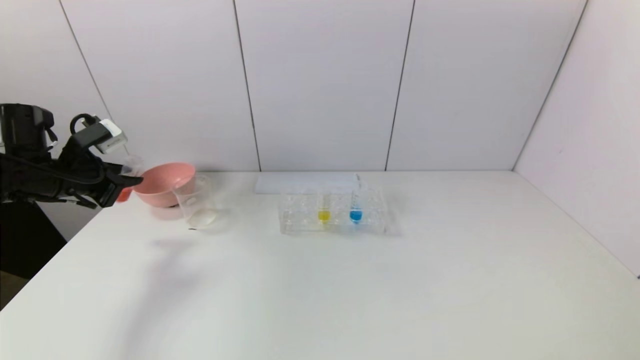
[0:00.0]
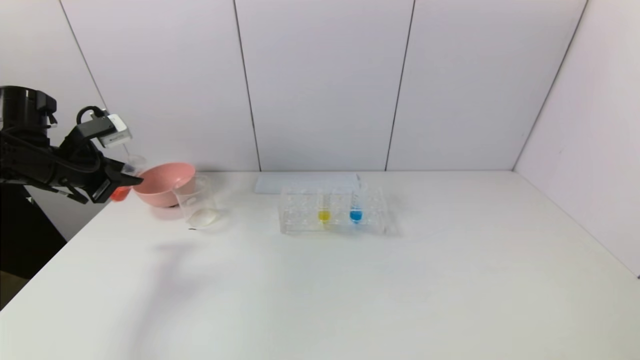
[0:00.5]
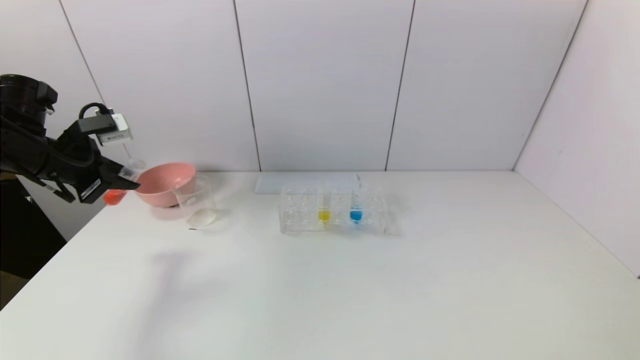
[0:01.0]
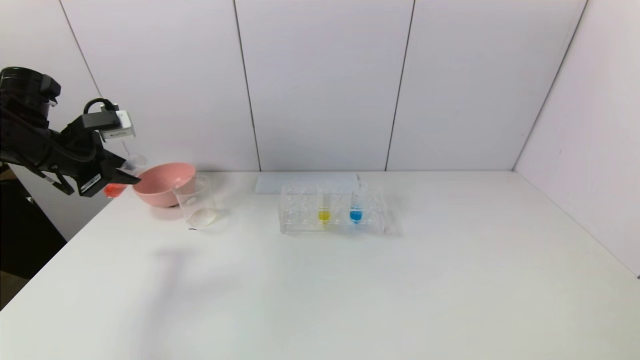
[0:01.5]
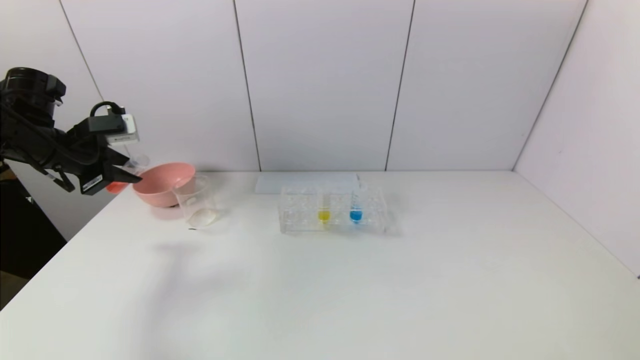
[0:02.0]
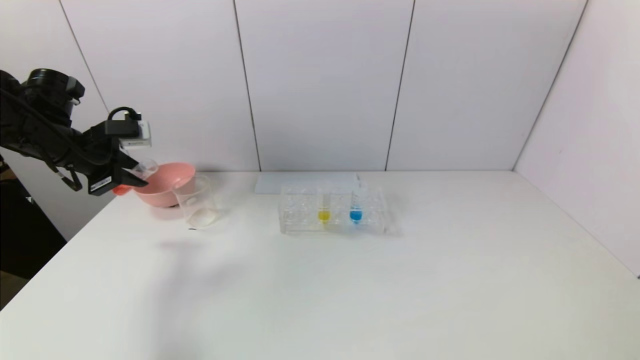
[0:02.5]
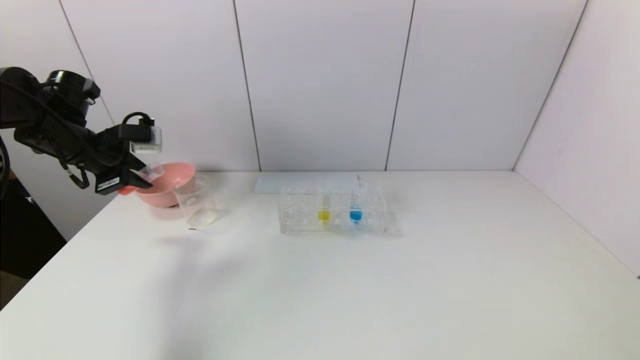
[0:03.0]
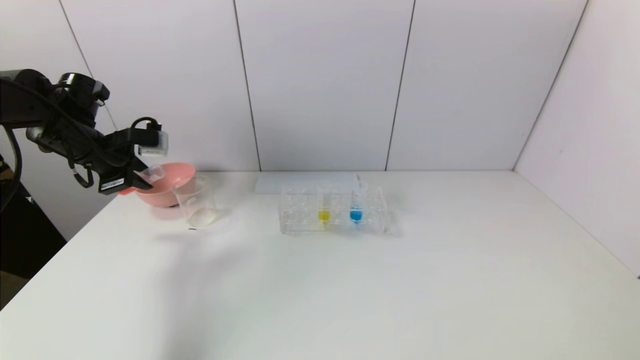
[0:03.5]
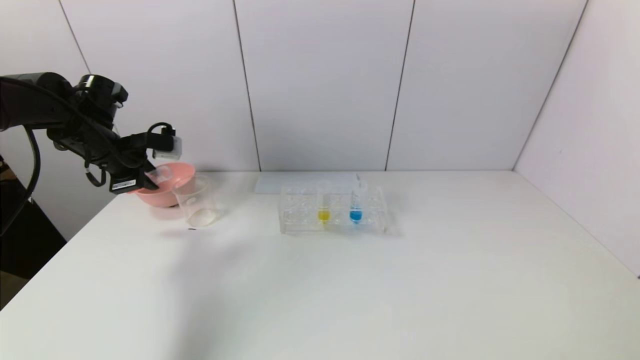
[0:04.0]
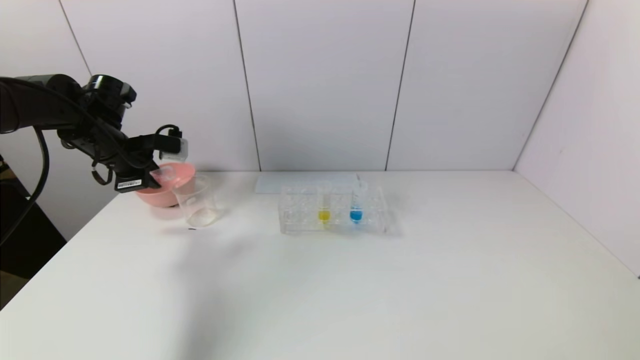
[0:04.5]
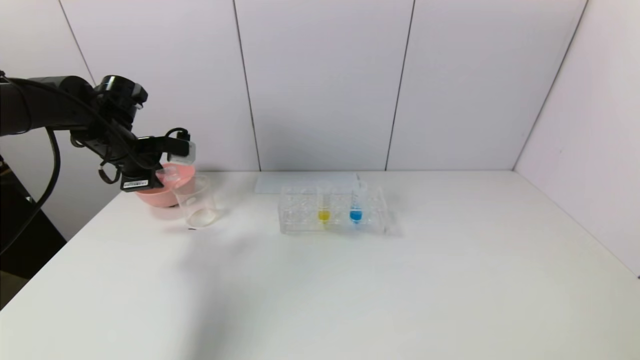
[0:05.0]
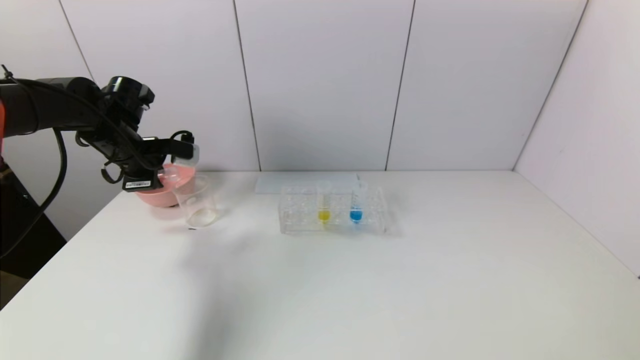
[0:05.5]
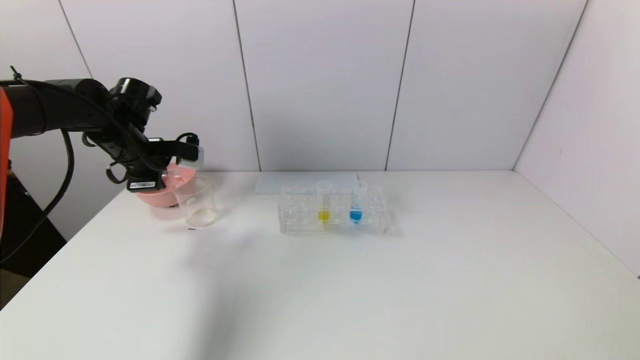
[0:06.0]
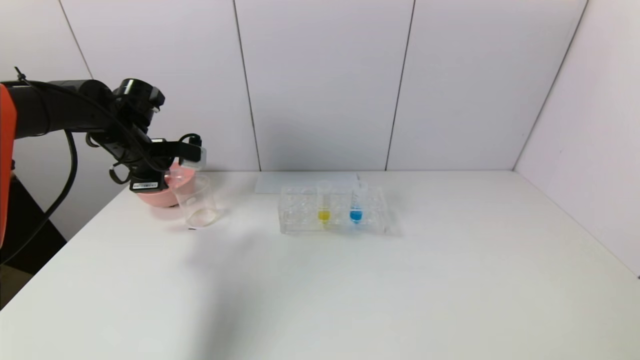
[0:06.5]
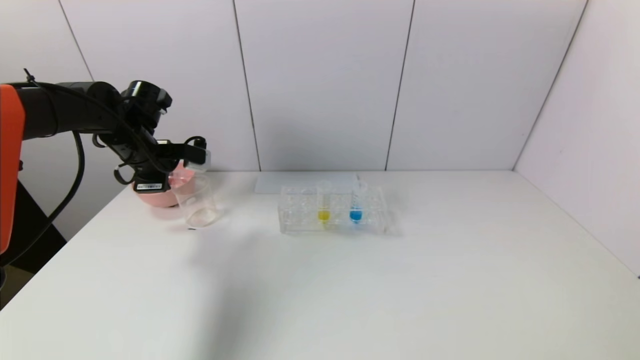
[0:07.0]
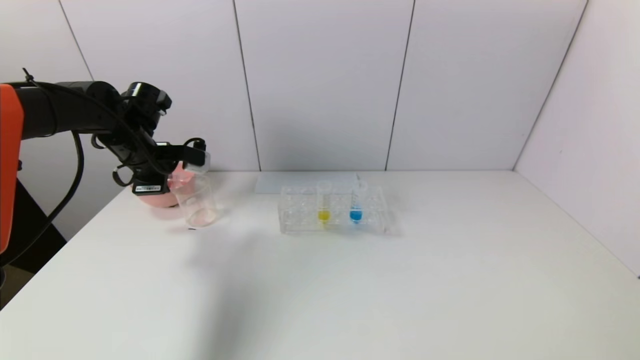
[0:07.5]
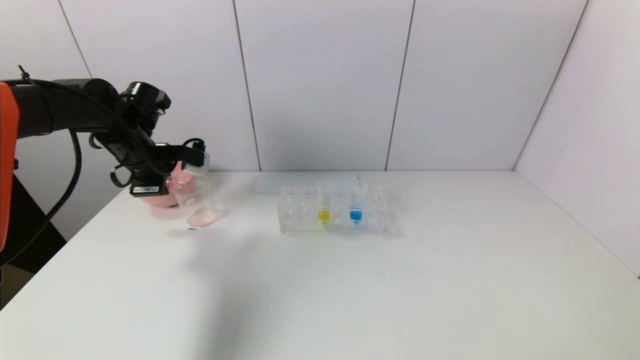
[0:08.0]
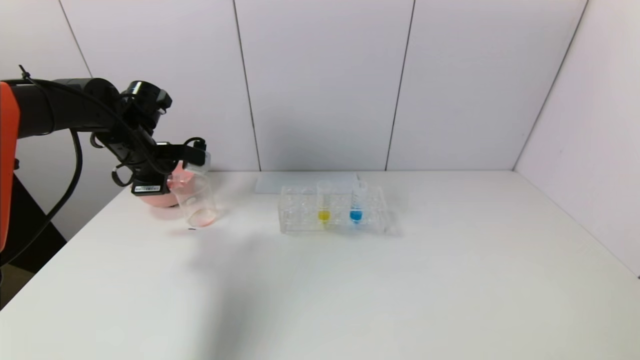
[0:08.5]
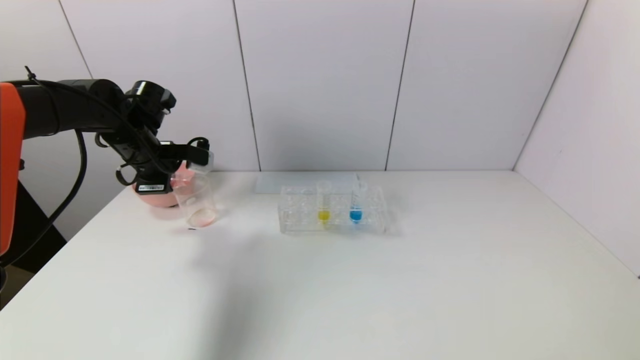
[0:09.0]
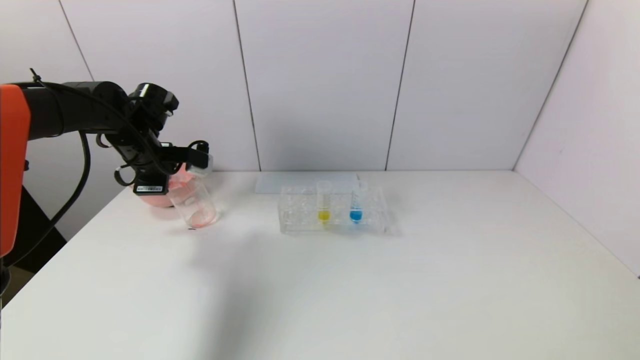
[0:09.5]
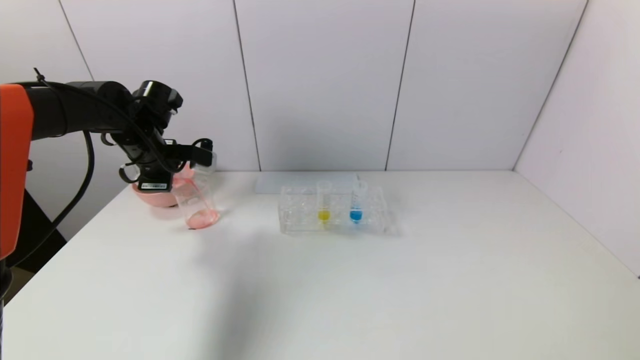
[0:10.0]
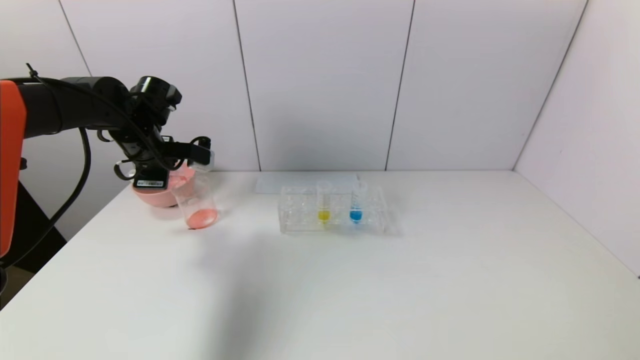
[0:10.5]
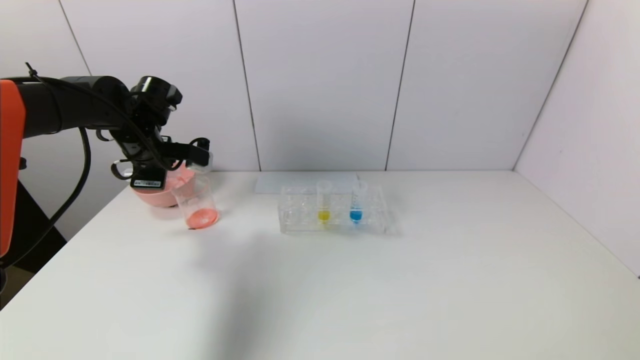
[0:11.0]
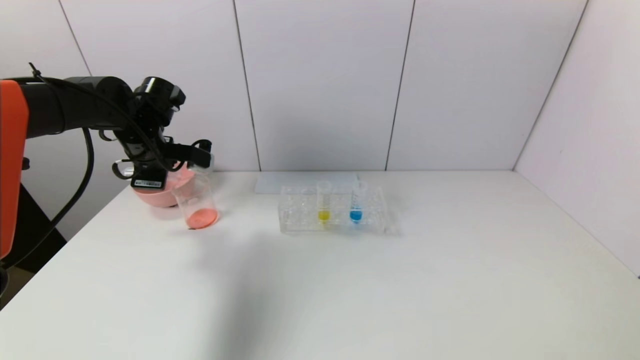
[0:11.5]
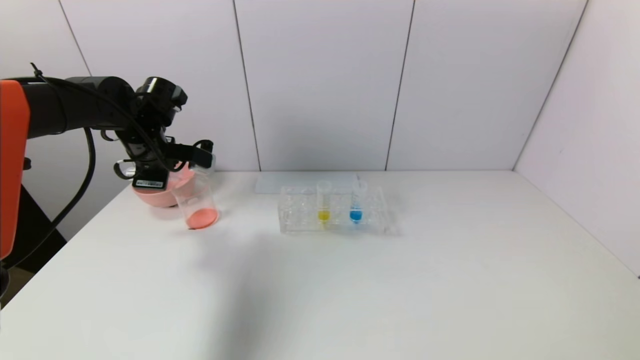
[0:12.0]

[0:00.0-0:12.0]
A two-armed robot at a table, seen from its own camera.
Task of the whole recording: pick up the test tube with yellow pigment and the test tube with red pigment by grippers and pour them into the beaker.
0:02.0 to 0:04.0: The left gripper ends up about 5 cm from where it was.
0:04.0 to 0:06.0: The grippers move only a little.
0:06.0 to 0:08.0: Both grippers stay about where they are.
0:08.0 to 0:12.0: The grippers stay close to where they were, moving slightly.

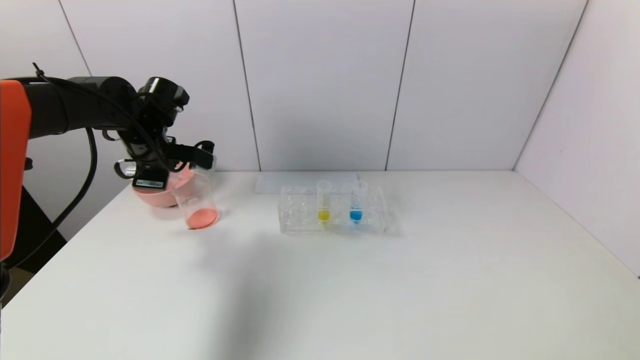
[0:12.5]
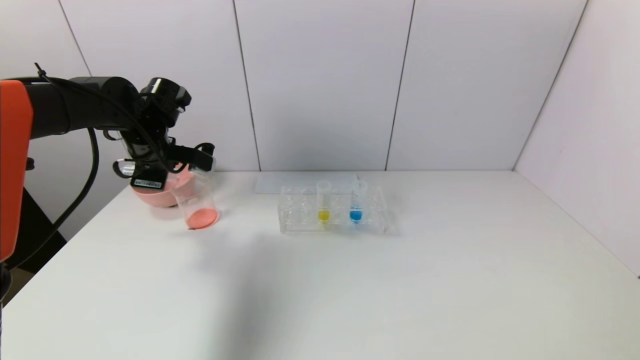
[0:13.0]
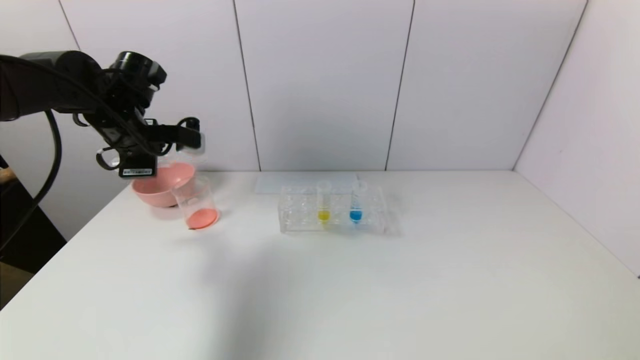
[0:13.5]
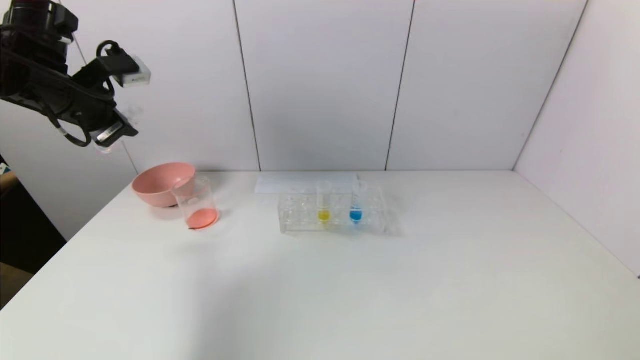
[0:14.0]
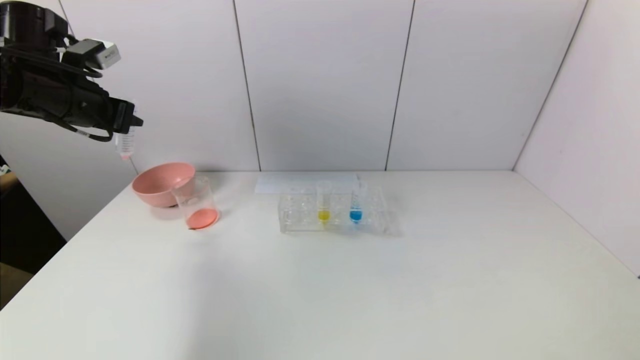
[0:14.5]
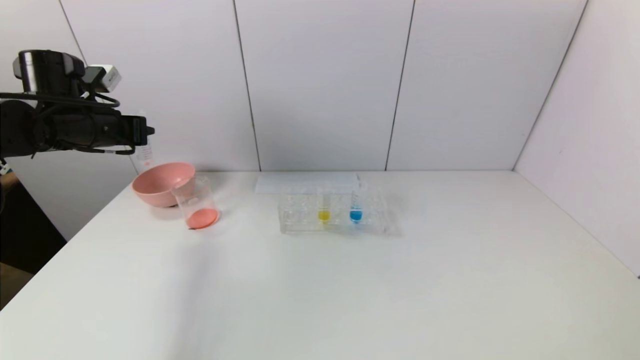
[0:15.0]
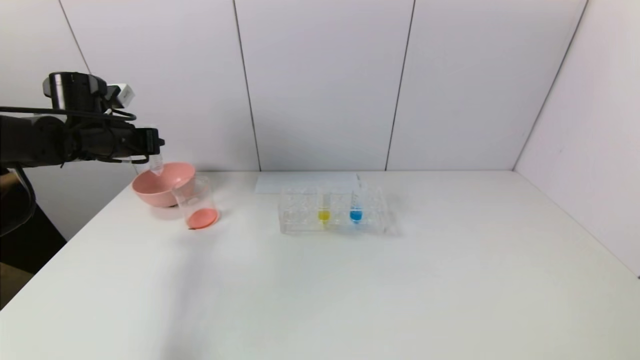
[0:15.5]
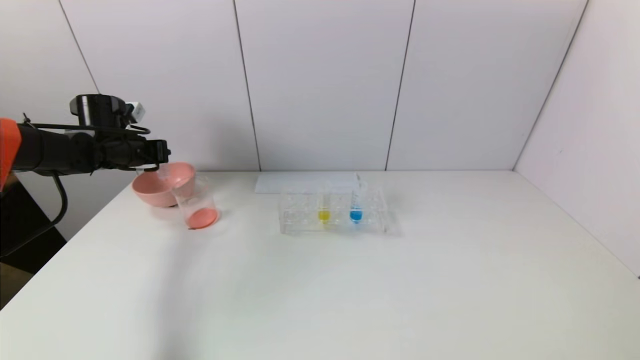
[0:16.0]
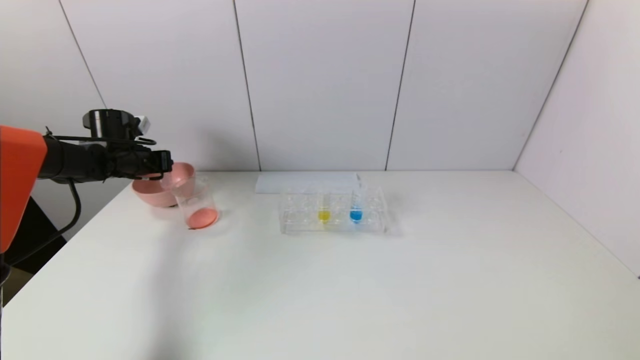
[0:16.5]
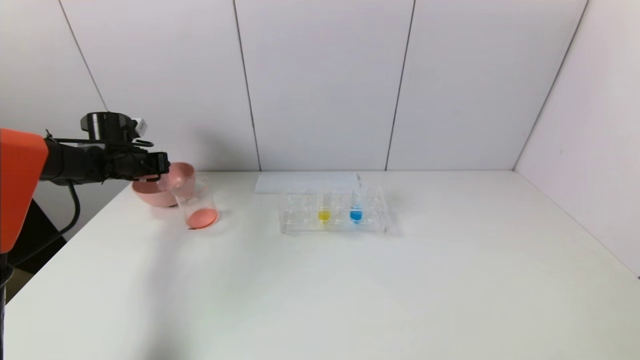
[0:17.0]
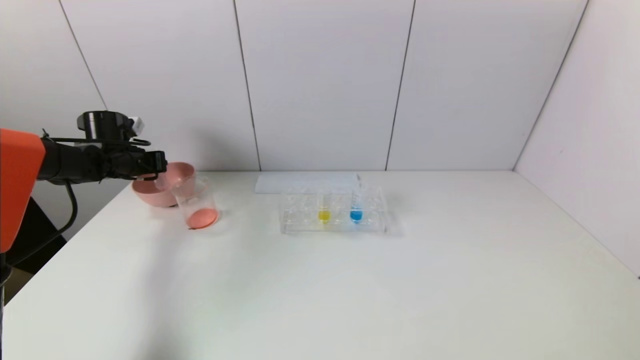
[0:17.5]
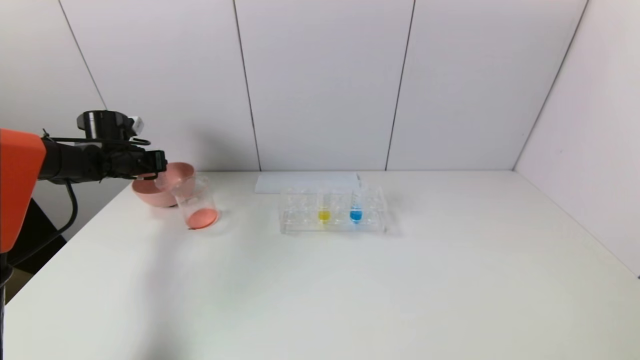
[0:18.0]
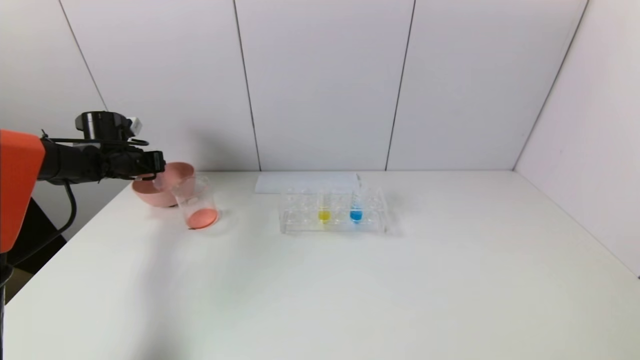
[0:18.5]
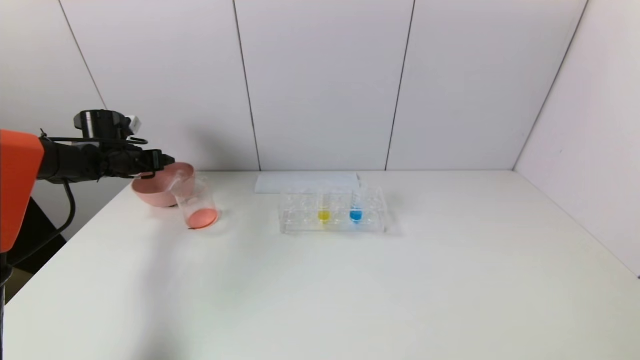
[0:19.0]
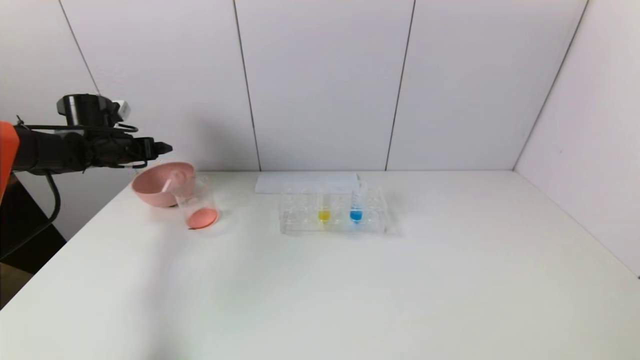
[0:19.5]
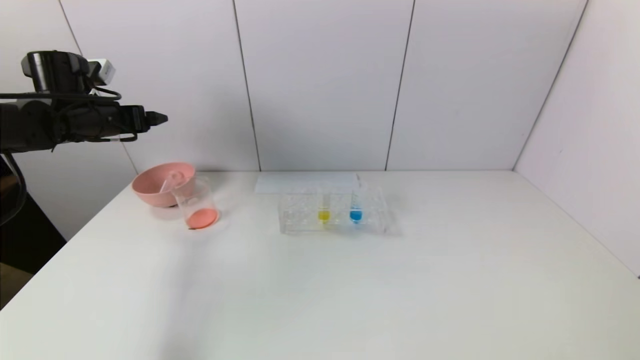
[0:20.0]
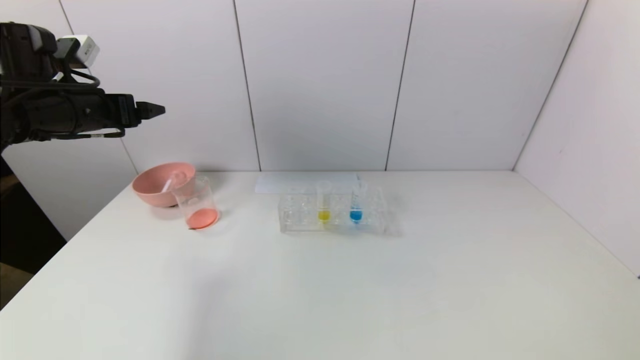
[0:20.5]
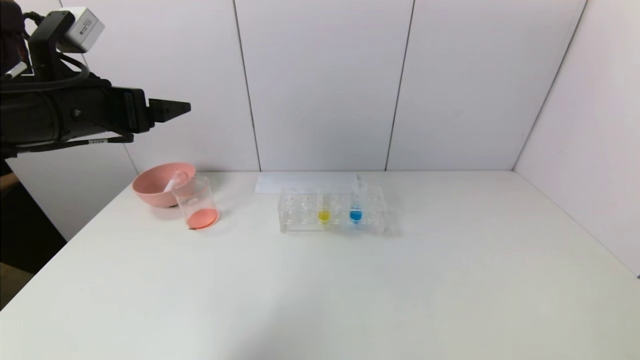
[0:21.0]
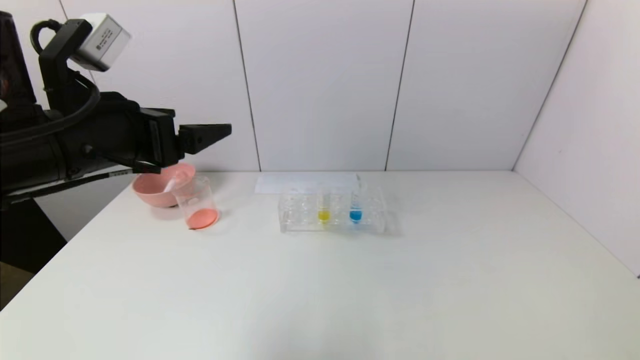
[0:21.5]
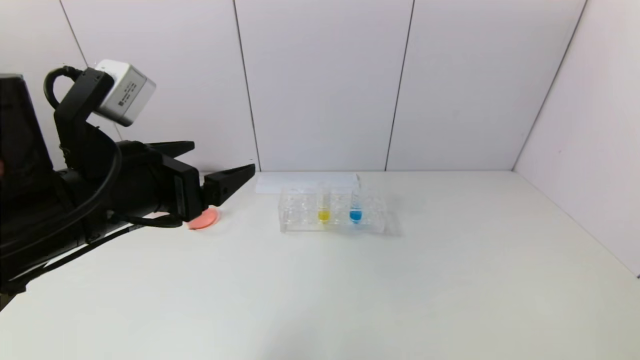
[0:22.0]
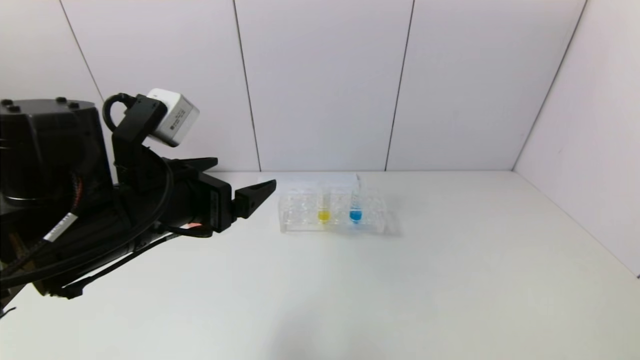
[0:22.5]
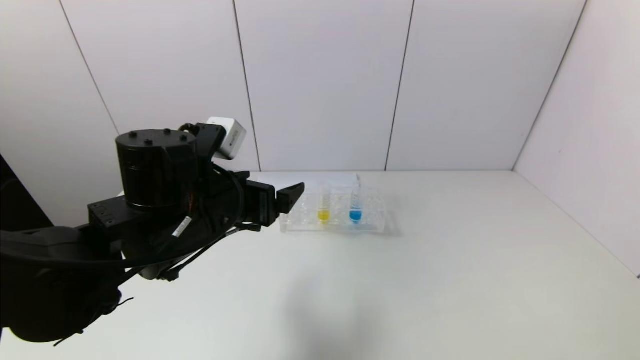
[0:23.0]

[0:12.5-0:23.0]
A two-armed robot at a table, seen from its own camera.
Task of the whole recording: pick up the test tube with yellow pigment and the test tube with red pigment by grippers and pour them into the beaker.
Step, 0:13.0 to 0:18.5: Place the test tube into the pink bowl with the left gripper.
0:12.5 to 0:14.5: The left gripper is displaced upward, to the left and backward by approximately 10 cm.
0:14.5 to 0:16.5: The left gripper heads downward and forward, covering about 20 cm.
0:16.5 to 0:19.0: The left gripper opens.
0:19.0 to 0:21.0: The left gripper travels backward, upward and to the right by roughly 30 cm.
0:21.0 to 0:23.0: The left gripper is displaced to the right and downward by about 15 cm.
